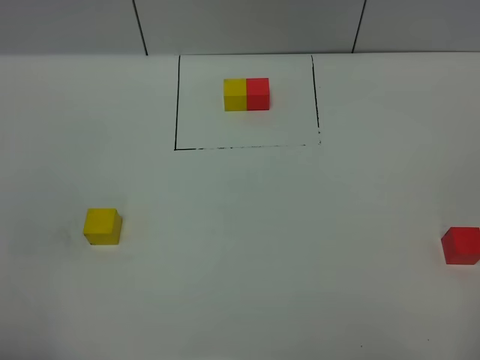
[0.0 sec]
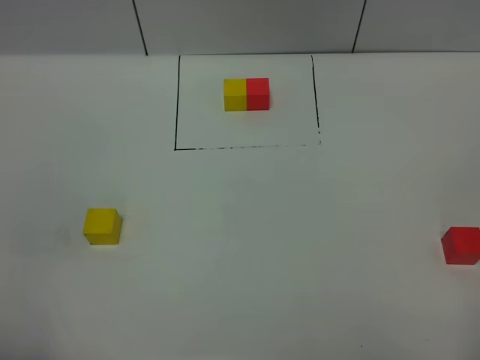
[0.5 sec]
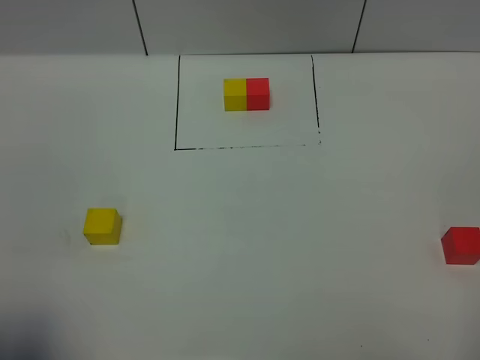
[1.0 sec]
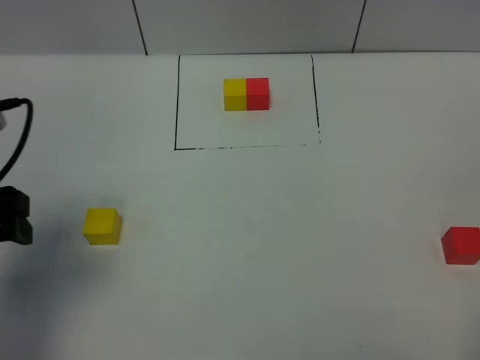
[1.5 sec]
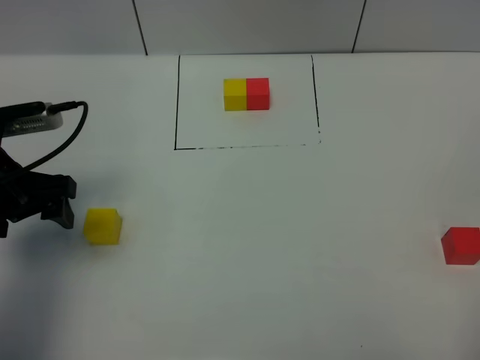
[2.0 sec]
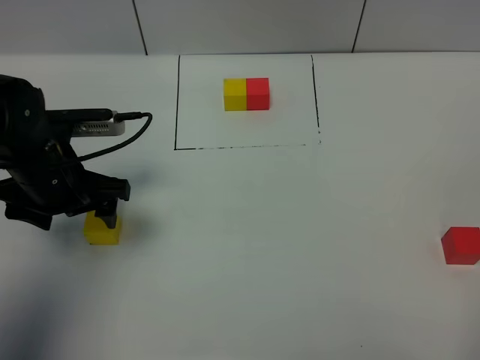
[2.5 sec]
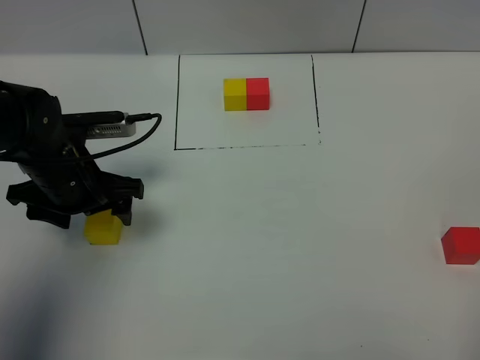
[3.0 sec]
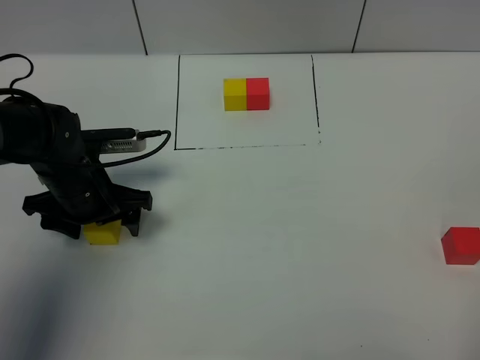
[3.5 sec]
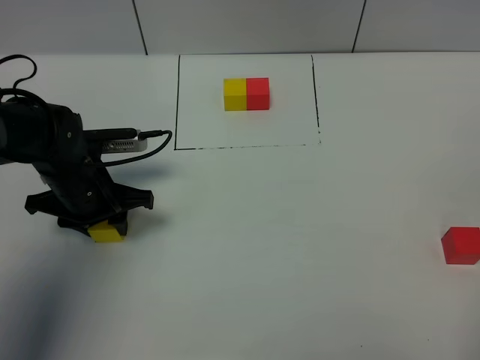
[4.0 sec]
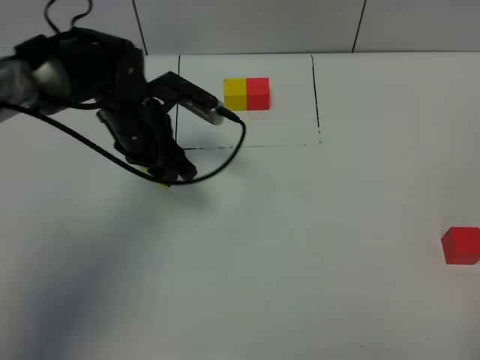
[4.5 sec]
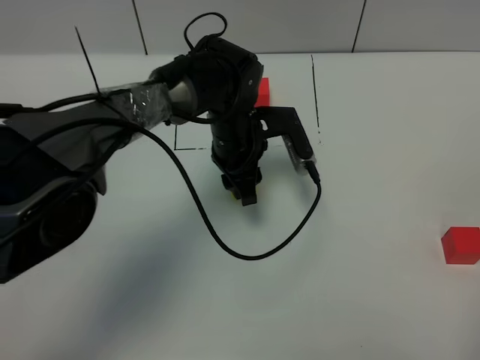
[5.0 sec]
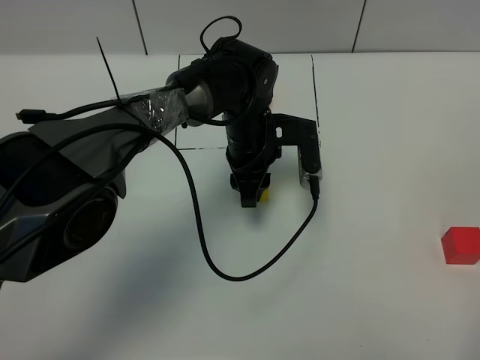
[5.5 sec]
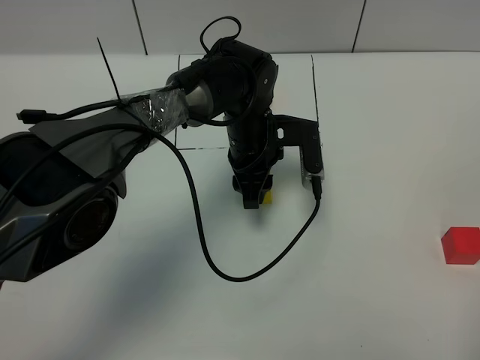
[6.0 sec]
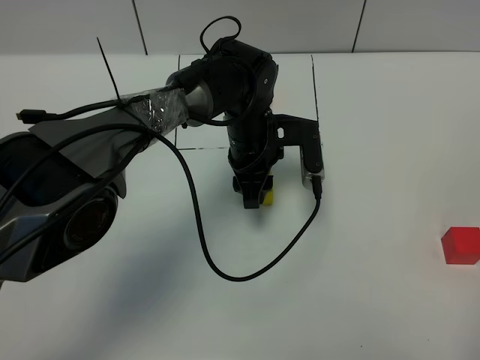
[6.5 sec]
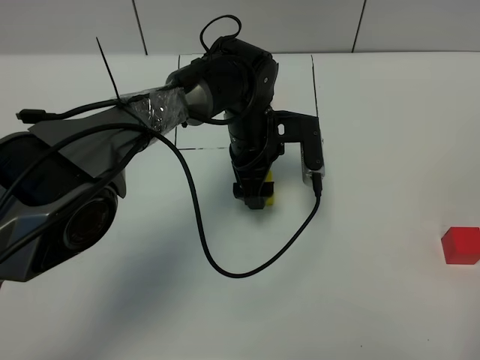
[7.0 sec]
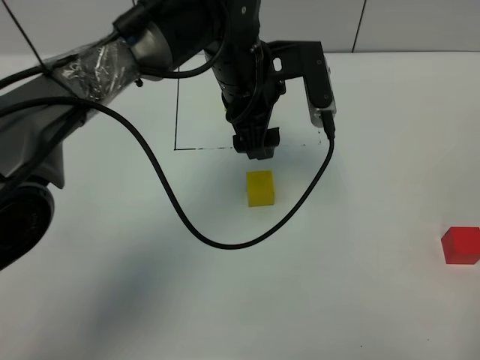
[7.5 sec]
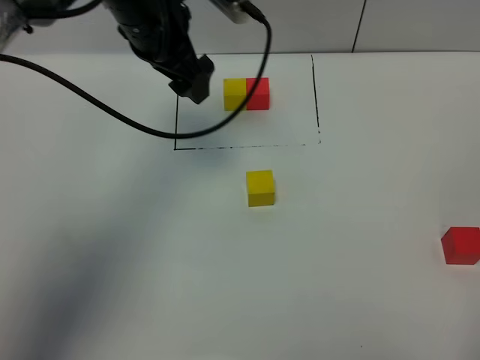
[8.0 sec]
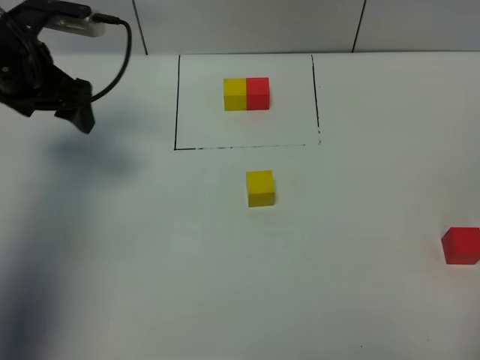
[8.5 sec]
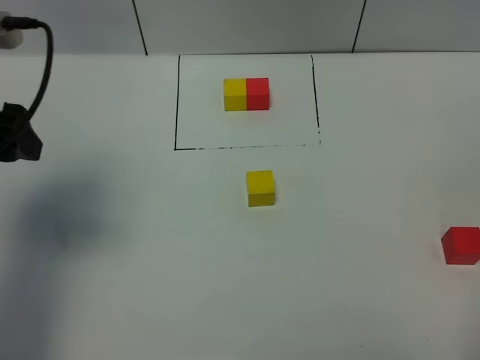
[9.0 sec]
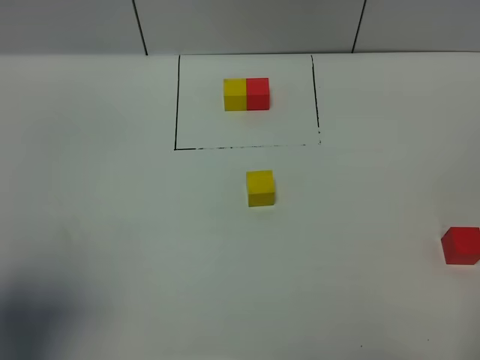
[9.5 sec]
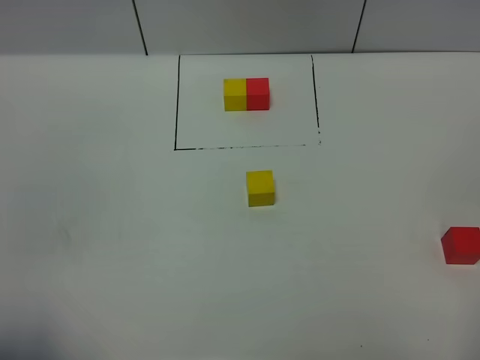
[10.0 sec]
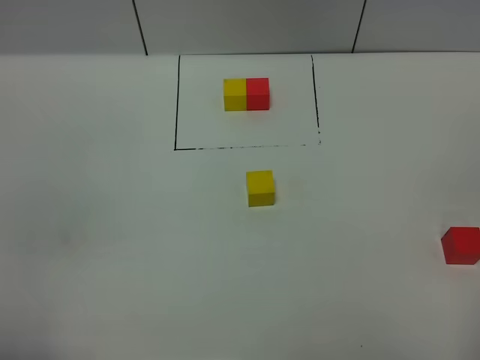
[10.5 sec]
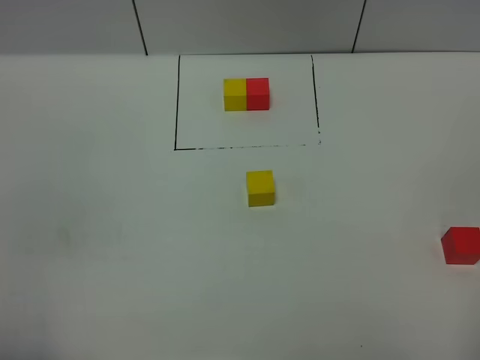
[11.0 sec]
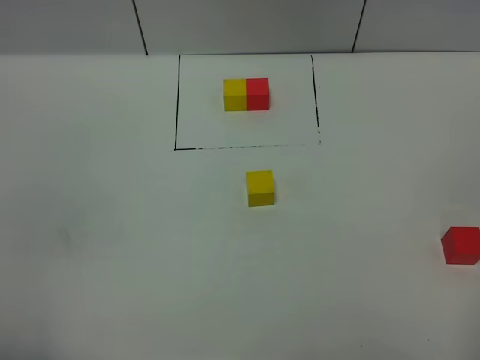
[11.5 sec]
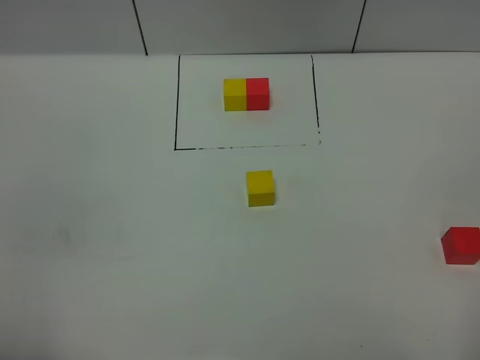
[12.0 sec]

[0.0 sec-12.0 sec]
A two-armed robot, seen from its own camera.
Task of the whole recording: According to the building block template in front, assemble the scattered blocks together.
Step, 1.5 sec to 7.0 sec: Put the yellow cube in the center of the table.
0.0 sec to 2.0 sec: The left gripper moves forward, approximately 25 cm.
2.0 sec to 4.0 sec: The left gripper heads downward, to the right and forward, covering approximately 10 cm, and closes its fingers.
4.0 sec to 6.0 sec: The left gripper shifts about 20 cm to the right.
6.0 sec to 8.0 sec: The left gripper heads upward and to the left, covering some 20 cm, and opens.
8.0 sec to 10.0 sec: The left gripper moves backward and to the left, some 40 cm.

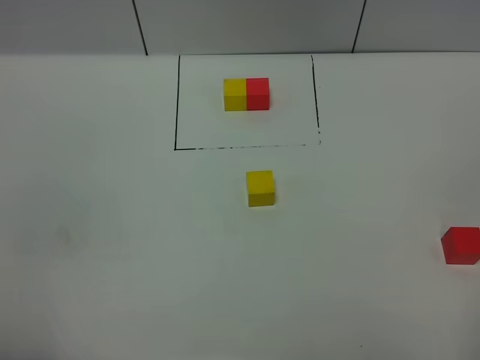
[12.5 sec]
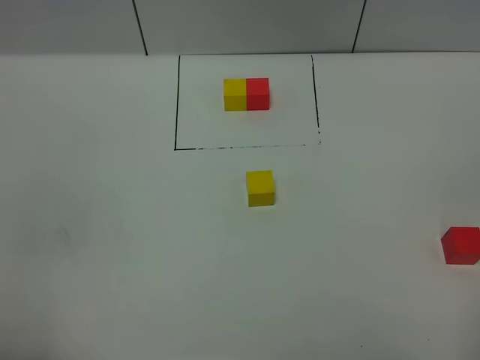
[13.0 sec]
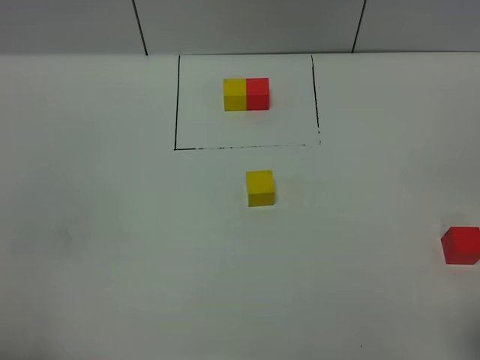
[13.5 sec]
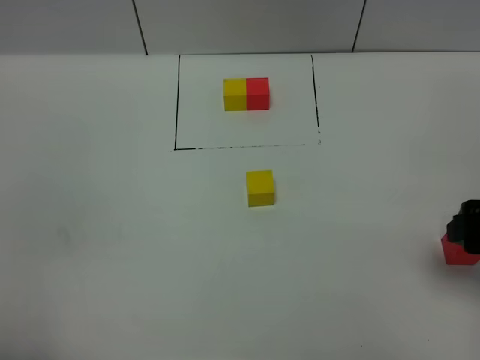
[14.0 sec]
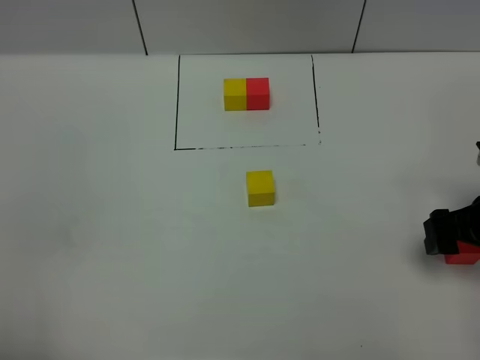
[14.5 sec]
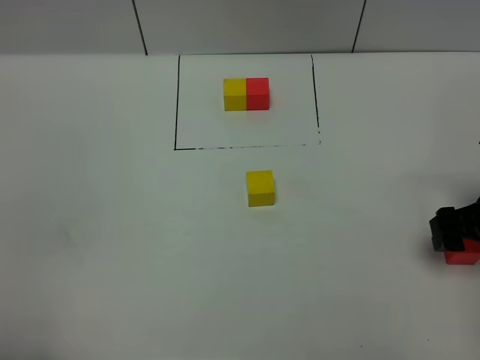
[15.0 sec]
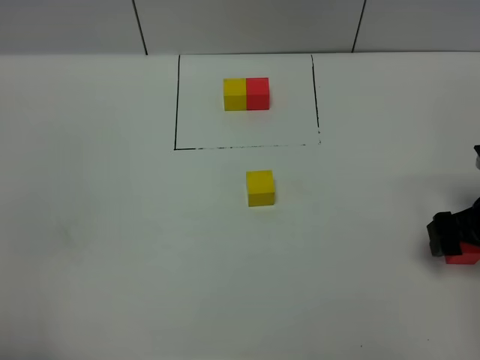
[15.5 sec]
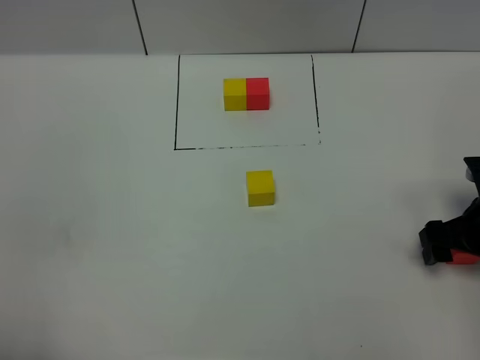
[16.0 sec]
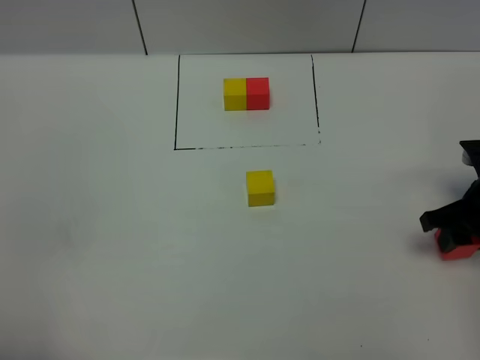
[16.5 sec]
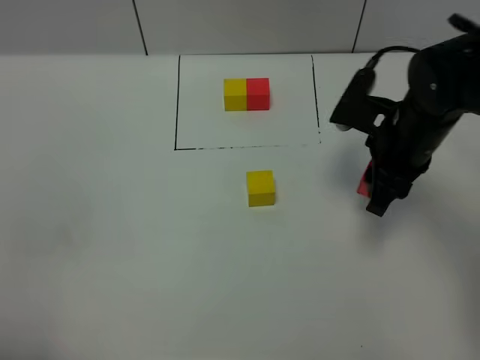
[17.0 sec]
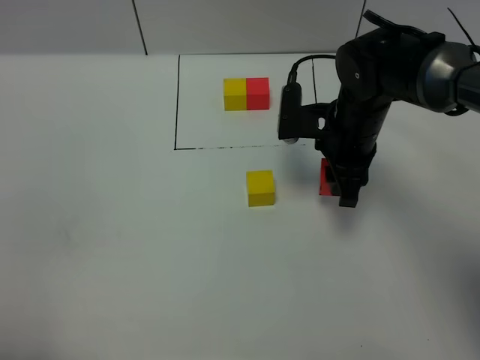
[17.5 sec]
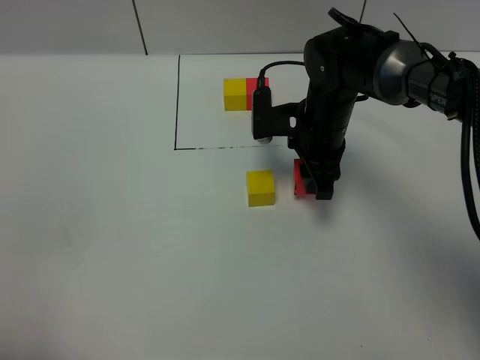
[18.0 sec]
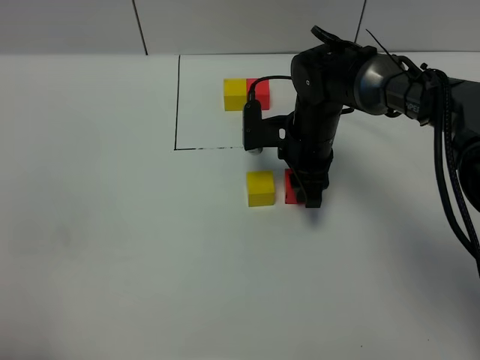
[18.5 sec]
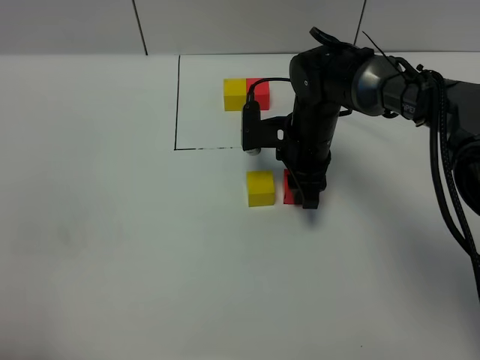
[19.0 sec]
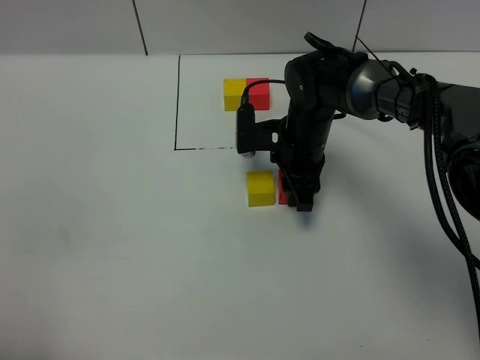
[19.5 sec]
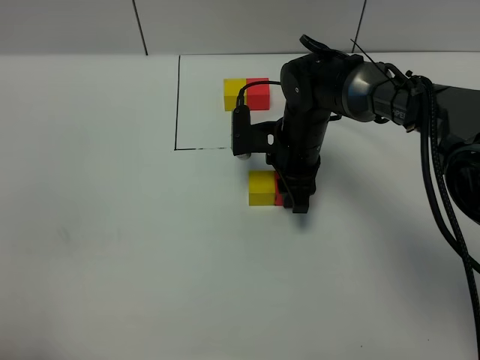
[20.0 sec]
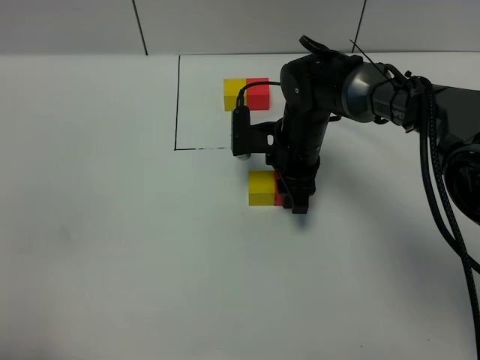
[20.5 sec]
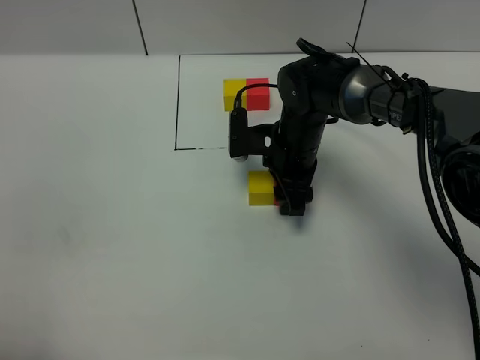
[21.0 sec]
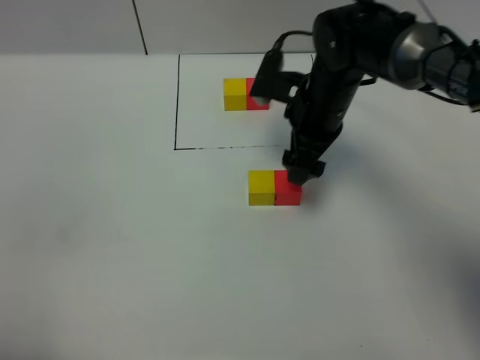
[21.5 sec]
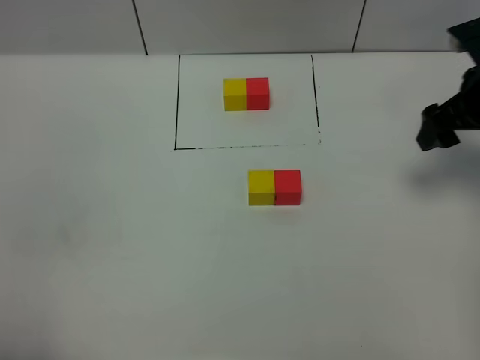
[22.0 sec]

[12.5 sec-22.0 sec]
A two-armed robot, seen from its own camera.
Task of the whole recording: According to the building block template in front, assemble the scattered blocks together.
Step, 12.5 sec to 21.0 sec: Put the red cube on the right of the yellow cube.
12.5 sec to 14.5 sec: The right gripper is displaced forward and downward by approximately 25 cm.
14.5 sec to 16.5 sec: The right gripper closes.
16.5 sec to 18.0 sec: The right gripper shifts some 25 cm to the left and forward.
18.0 sec to 20.0 sec: The grippers move only a little.
20.0 sec to 22.0 sec: The right gripper travels to the right and upward by some 25 cm, and opens its fingers.
